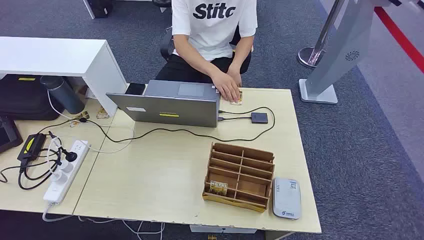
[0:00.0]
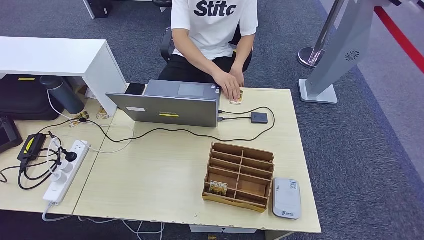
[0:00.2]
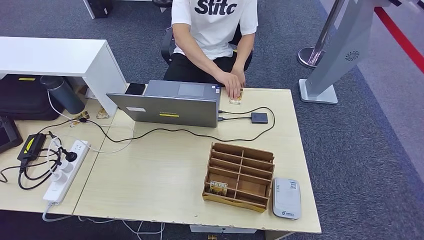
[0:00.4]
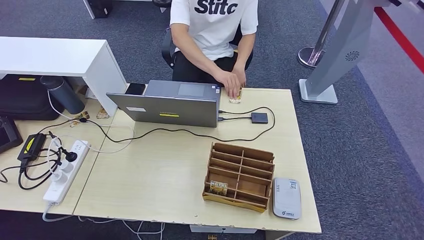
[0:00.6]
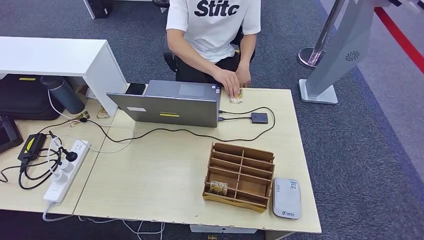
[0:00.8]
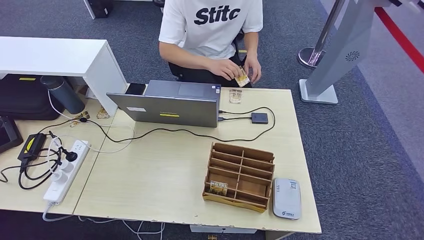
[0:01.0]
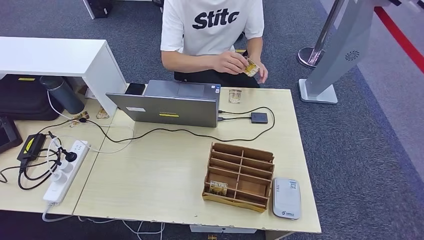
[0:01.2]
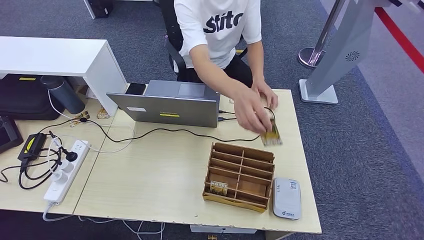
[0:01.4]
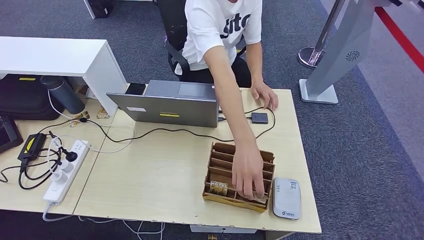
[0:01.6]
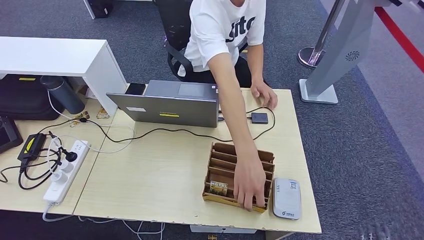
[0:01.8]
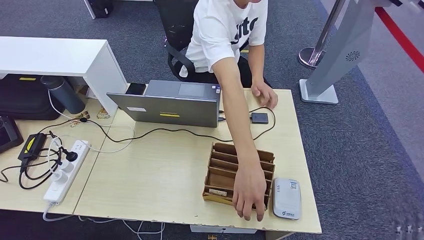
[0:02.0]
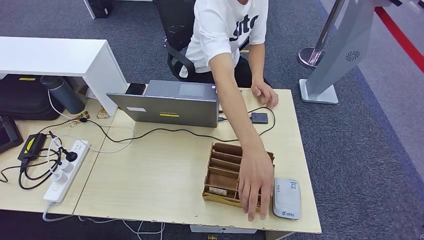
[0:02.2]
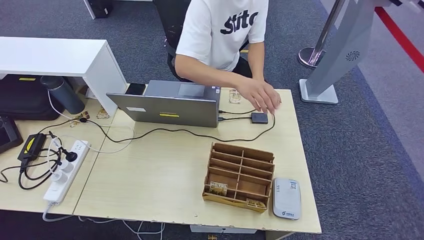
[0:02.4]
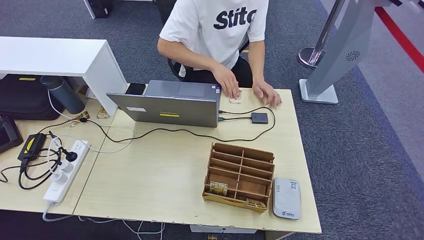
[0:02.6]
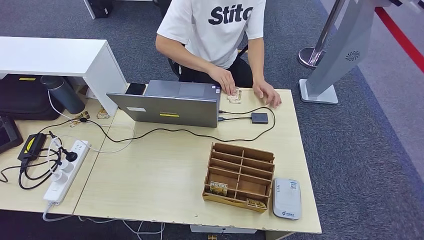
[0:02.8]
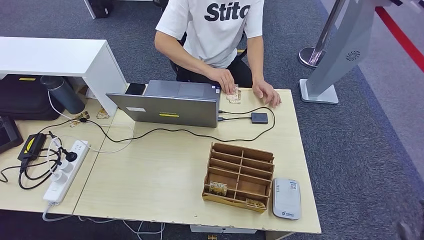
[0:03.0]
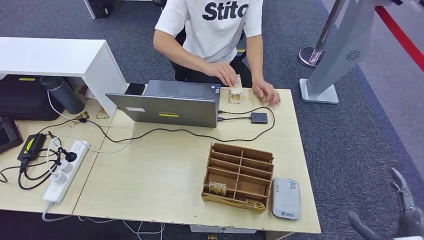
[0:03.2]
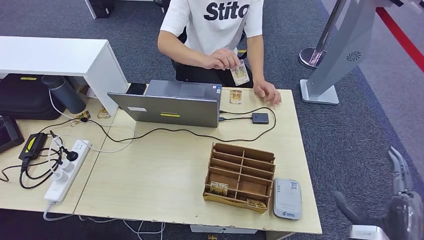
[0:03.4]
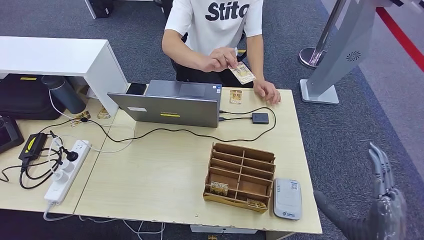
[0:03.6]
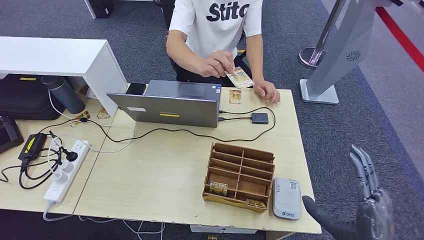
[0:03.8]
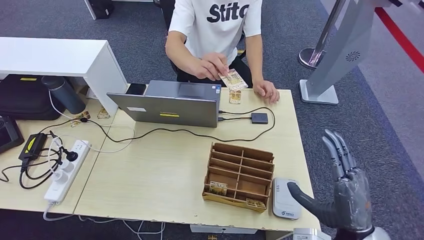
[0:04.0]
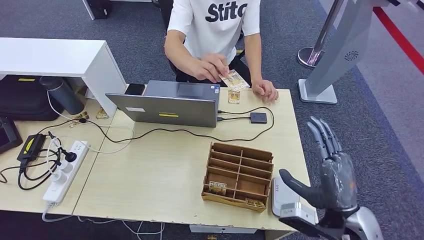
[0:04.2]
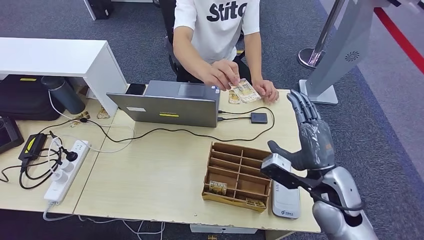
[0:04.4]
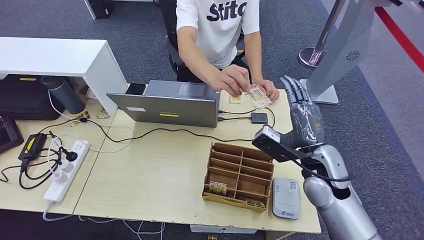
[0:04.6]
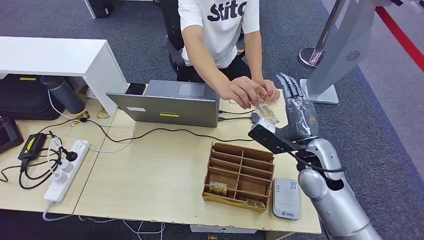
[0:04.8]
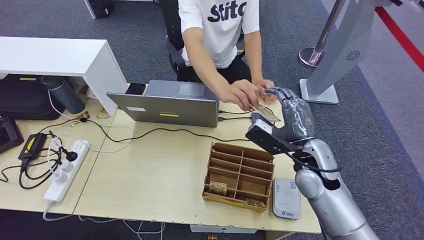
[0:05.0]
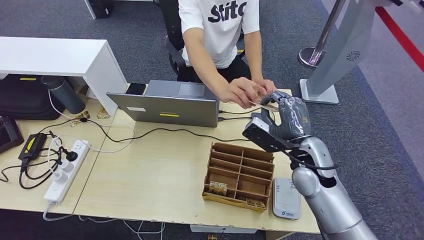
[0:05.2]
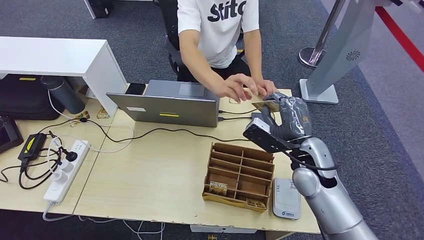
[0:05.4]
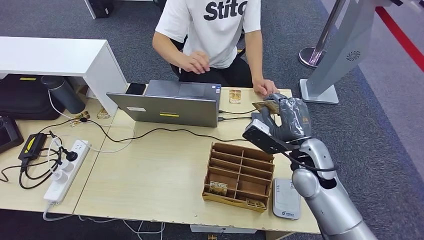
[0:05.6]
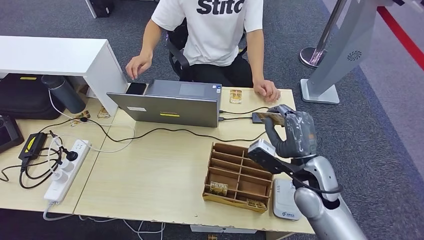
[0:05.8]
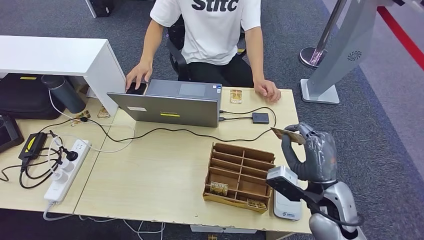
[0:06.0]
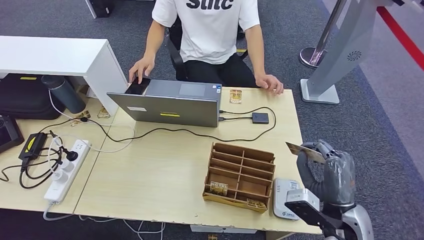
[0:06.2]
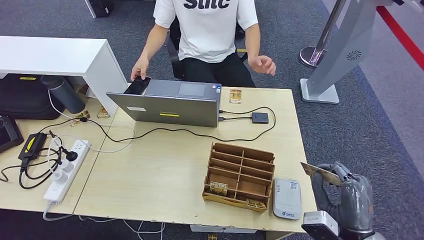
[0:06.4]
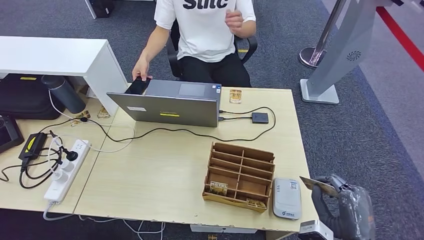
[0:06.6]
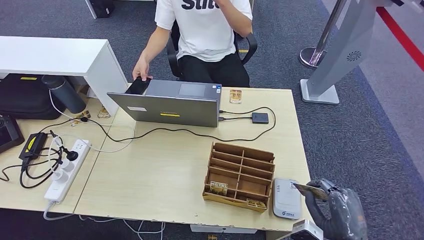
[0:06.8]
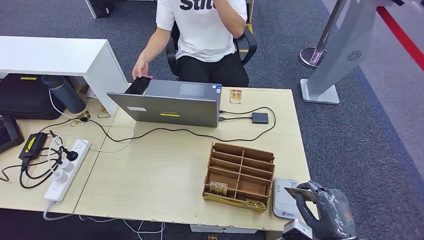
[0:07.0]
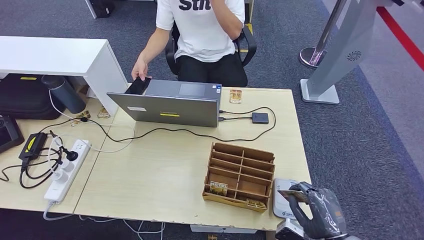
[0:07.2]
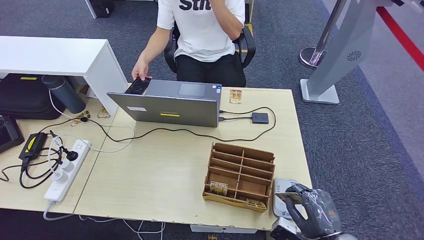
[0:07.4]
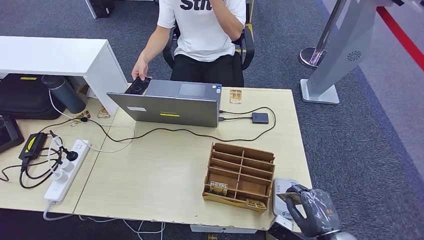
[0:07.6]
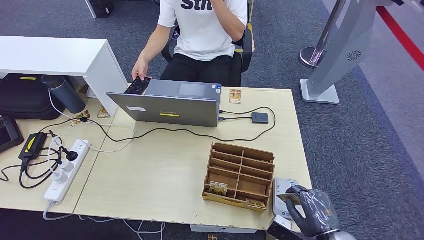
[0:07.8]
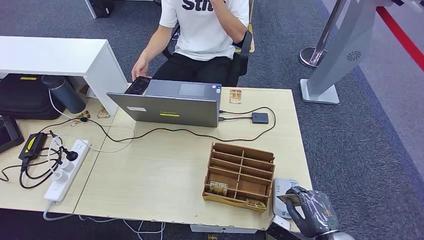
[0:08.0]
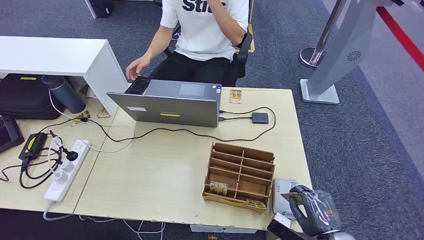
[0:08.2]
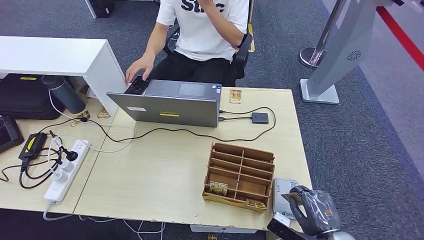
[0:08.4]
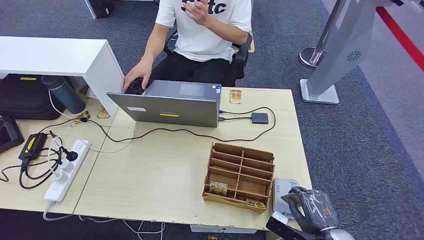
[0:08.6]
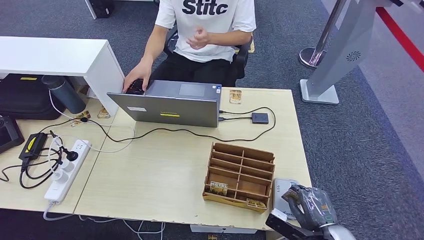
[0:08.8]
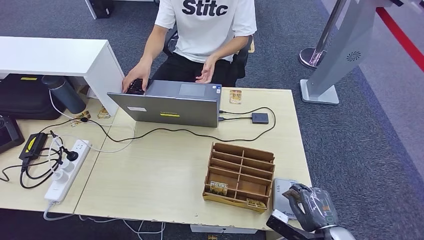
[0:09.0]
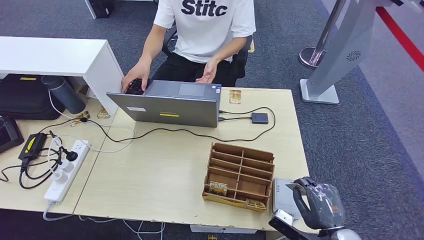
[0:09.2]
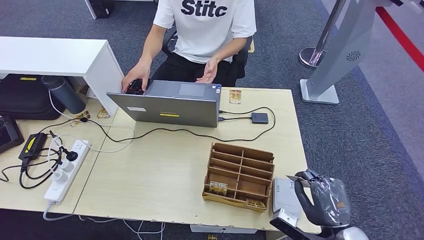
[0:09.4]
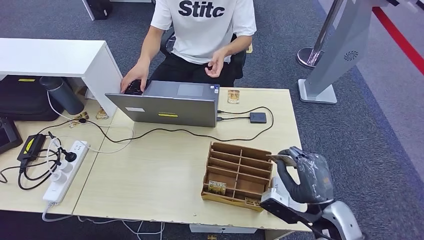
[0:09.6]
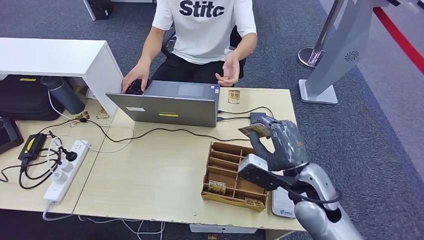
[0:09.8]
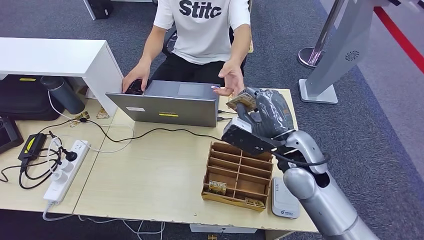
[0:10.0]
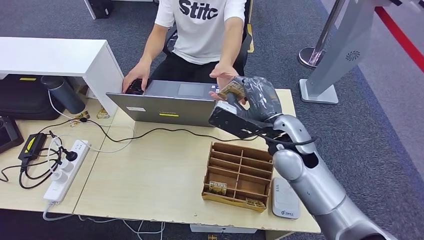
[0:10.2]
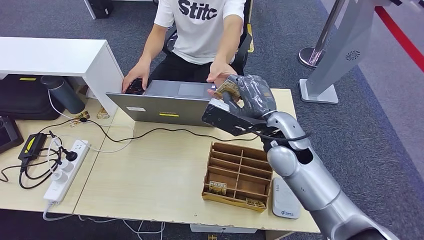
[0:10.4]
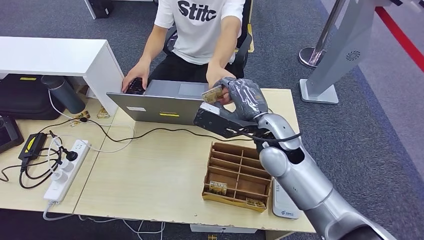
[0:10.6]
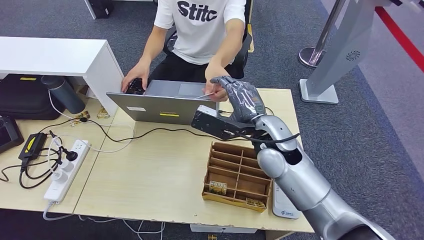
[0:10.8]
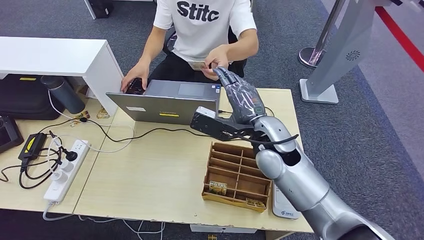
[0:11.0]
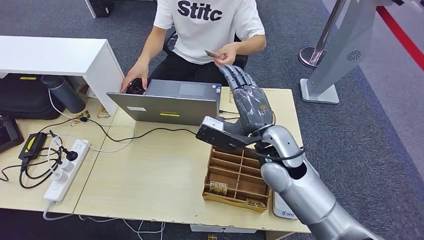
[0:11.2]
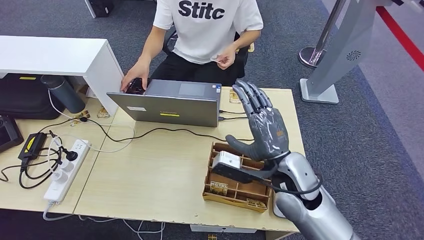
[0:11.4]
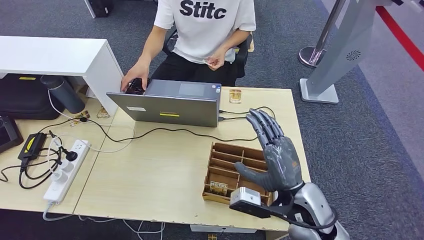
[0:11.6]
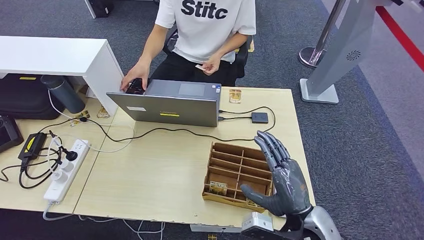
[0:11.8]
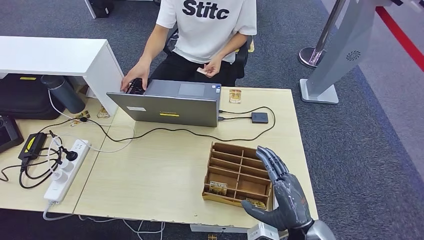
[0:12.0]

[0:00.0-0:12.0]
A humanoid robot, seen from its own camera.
Step, 0:00.0 to 0:05.4: Take the ID card from the person's hand.
Step, 0:05.6 to 0:08.2: Place the ID card on the card reader.
Step, 0:08.4 to 0:11.0: Hand the ID card to the person.
0:01.6 to 0:03.0: The right hand heads upward and to the right, covering about 15 cm.
0:03.0 to 0:04.4: The right hand moves to the left, forward and upward, about 30 cm. The left hand moves to the left, approximately 5 cm.
0:04.4 to 0:06.0: The right hand travels forward and back again, some 5 cm each way.
0:06.0 to 0:07.6: The right hand travels backward and downward by roughly 15 cm.
0:07.6 to 0:09.0: The hands make only small movements.
0:09.0 to 0:10.4: The right hand goes about 35 cm upward, forward and to the left. The left hand ends up roughly 5 cm from where it was.
0:10.4 to 0:12.0: The right hand goes roughly 25 cm backward, downward and to the right.

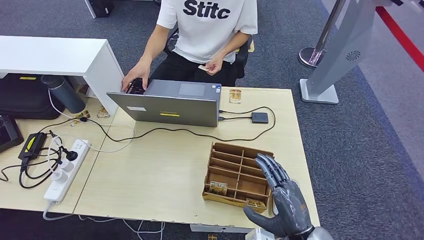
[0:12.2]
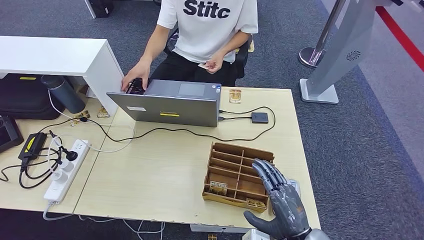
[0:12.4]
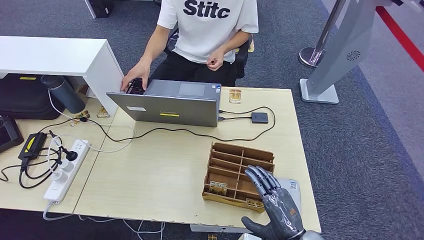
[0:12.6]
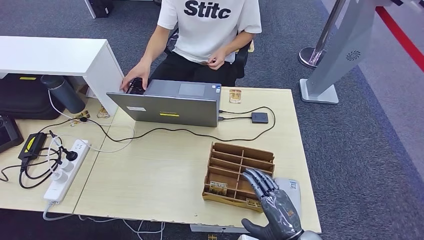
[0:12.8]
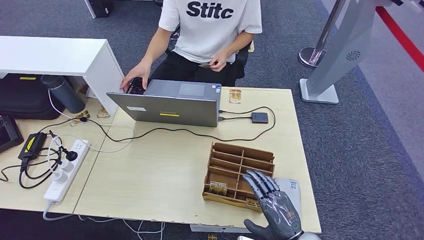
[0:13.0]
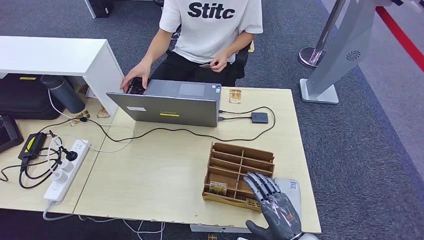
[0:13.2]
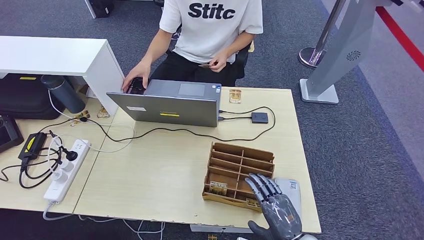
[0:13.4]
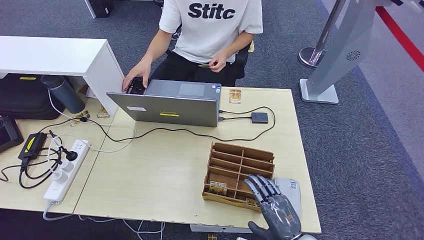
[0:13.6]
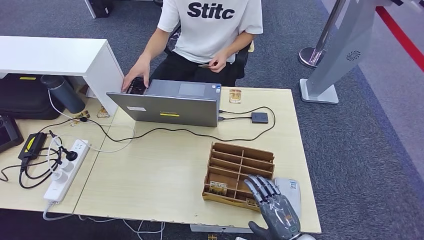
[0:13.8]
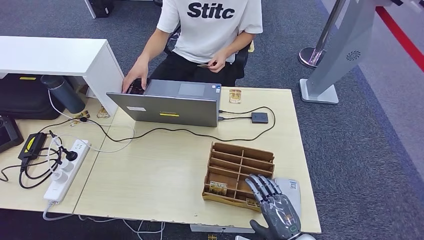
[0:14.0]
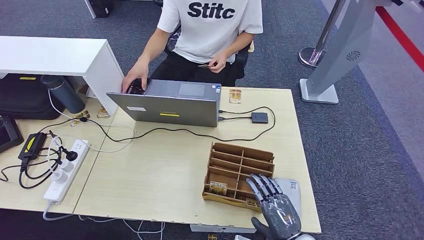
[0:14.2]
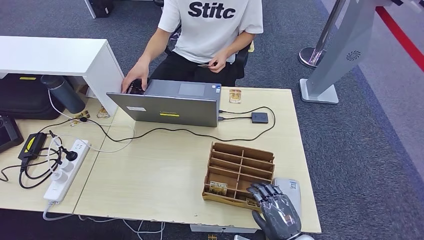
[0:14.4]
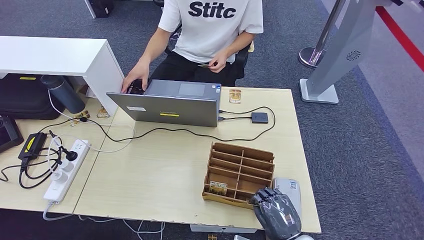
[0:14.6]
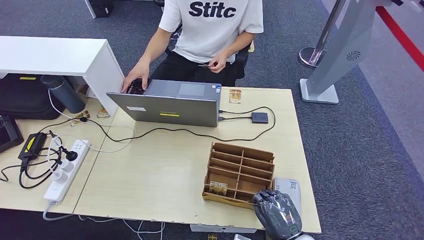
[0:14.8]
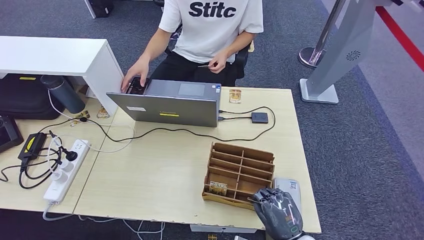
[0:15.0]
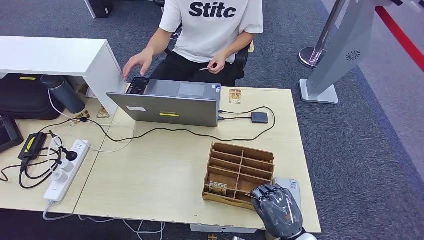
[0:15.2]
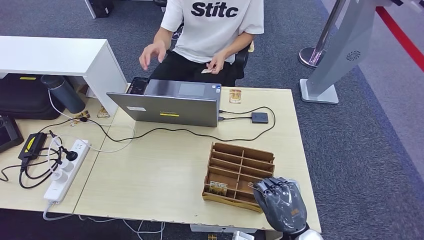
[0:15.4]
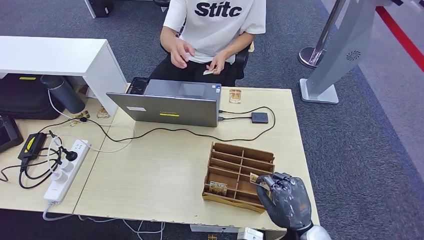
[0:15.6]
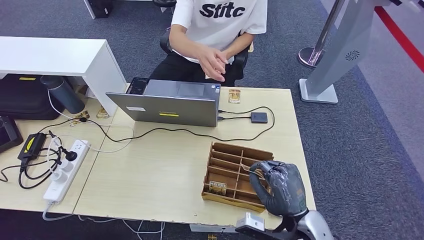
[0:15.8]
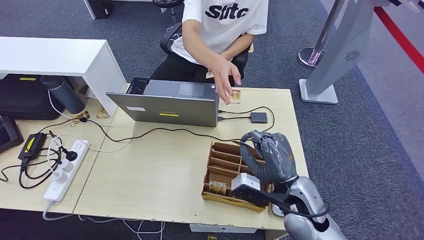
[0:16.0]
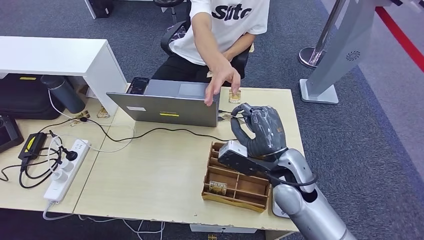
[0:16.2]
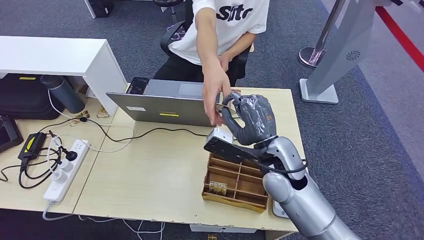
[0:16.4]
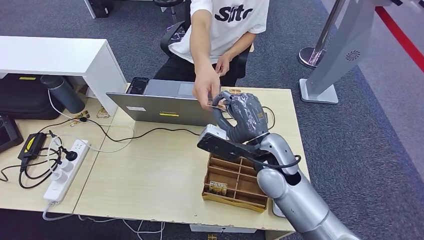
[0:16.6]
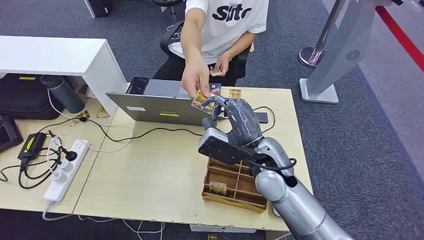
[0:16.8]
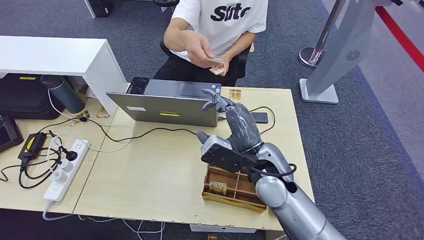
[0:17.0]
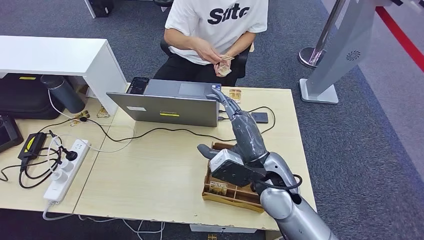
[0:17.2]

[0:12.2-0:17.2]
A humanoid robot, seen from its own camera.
Step, 0:12.2 to 0:15.0: Pick up the room key from the key card box.
Step, 0:15.2 to 0:17.2: Hand the room key to the person.
0:12.2 to 0:13.8: The right hand travels downward by approximately 5 cm.
0:15.6 to 0:17.2: The right hand shifts approximately 20 cm upward, forward and to the left.
